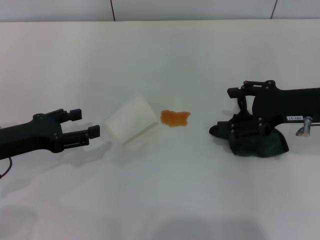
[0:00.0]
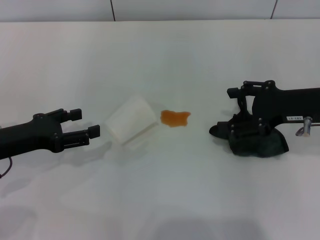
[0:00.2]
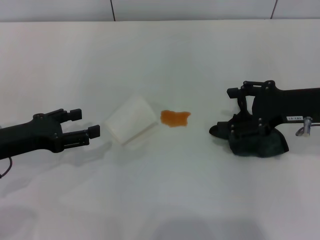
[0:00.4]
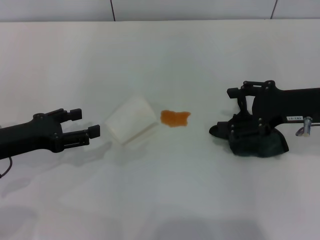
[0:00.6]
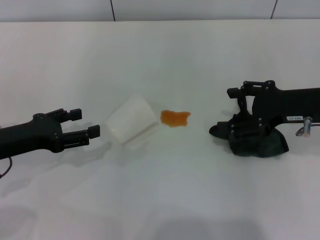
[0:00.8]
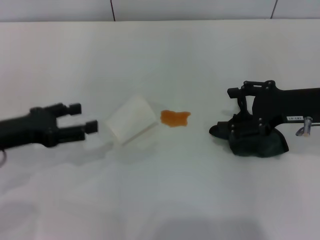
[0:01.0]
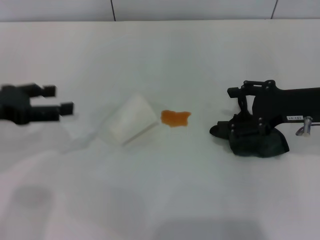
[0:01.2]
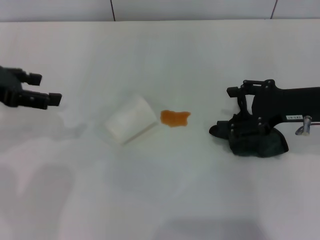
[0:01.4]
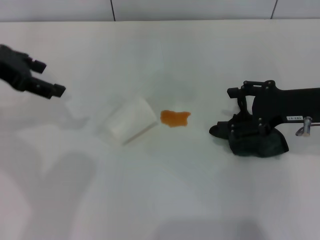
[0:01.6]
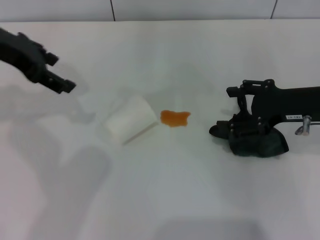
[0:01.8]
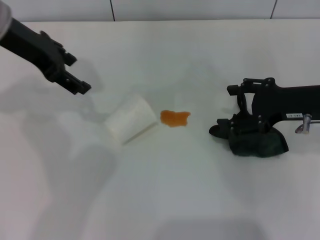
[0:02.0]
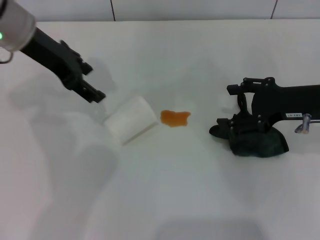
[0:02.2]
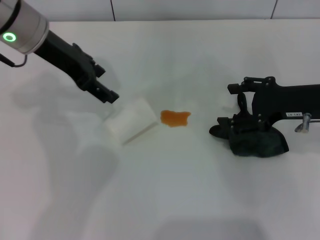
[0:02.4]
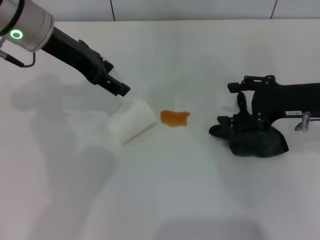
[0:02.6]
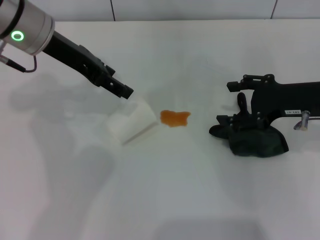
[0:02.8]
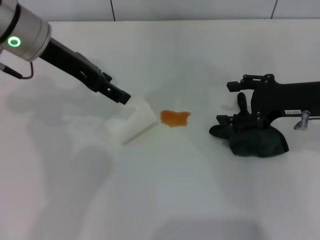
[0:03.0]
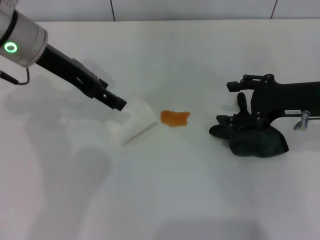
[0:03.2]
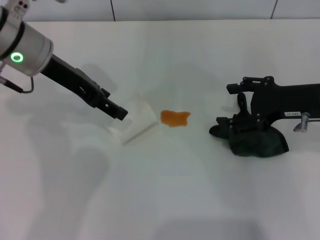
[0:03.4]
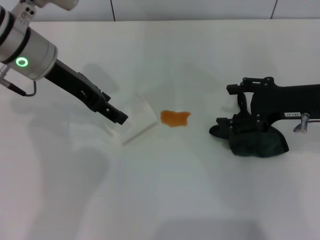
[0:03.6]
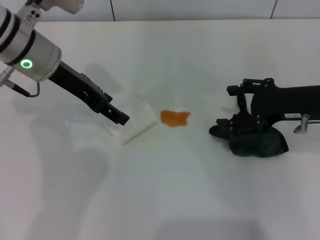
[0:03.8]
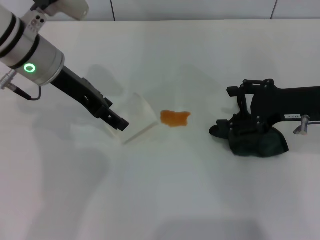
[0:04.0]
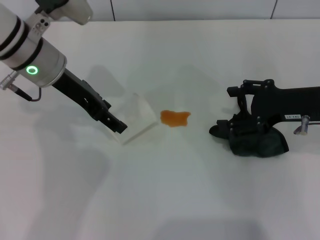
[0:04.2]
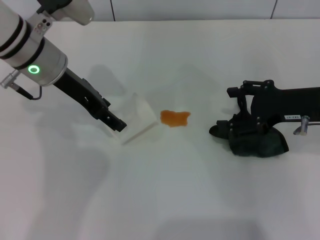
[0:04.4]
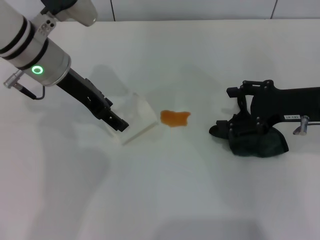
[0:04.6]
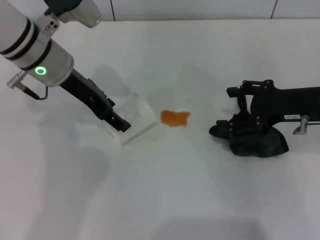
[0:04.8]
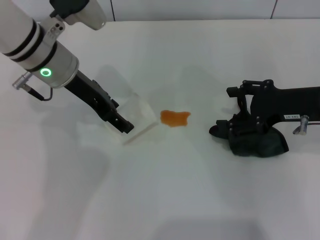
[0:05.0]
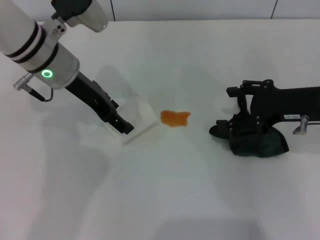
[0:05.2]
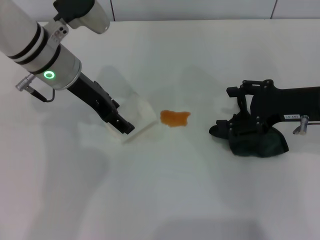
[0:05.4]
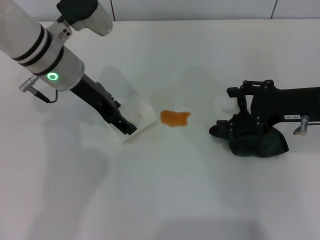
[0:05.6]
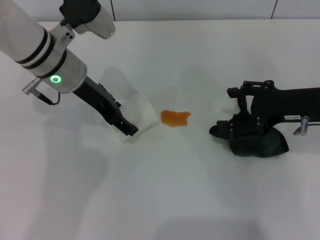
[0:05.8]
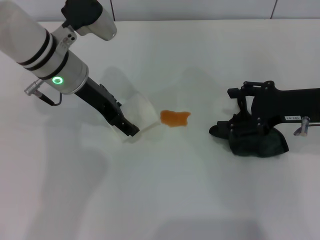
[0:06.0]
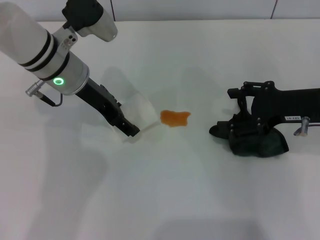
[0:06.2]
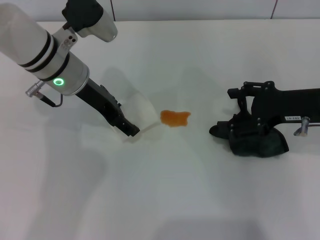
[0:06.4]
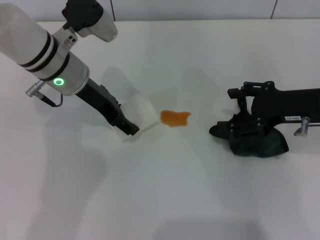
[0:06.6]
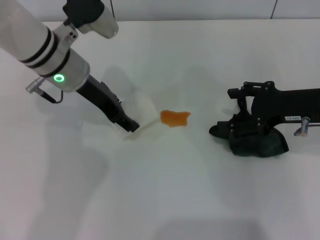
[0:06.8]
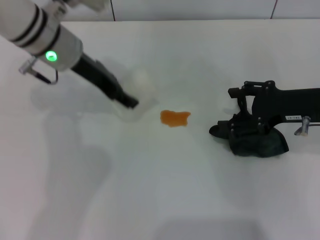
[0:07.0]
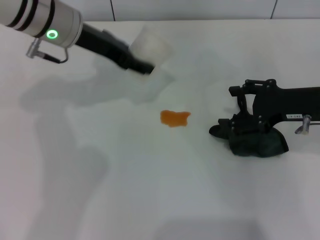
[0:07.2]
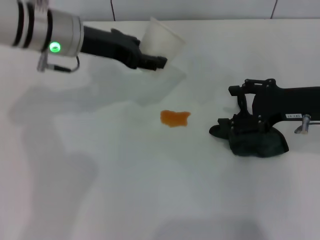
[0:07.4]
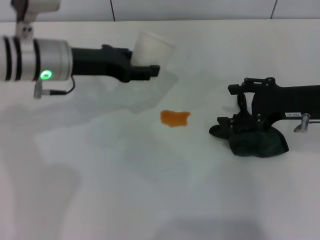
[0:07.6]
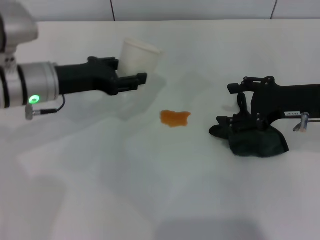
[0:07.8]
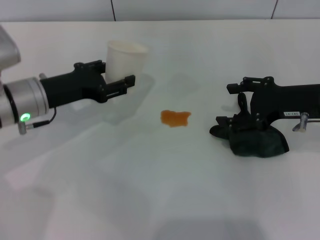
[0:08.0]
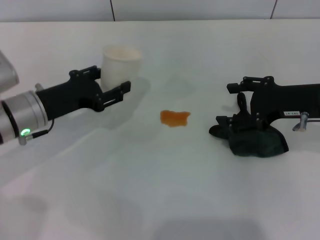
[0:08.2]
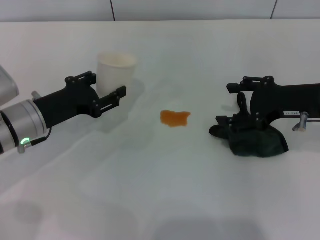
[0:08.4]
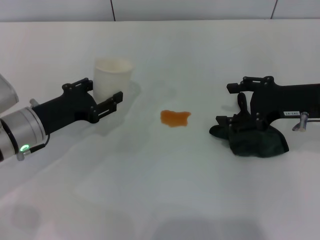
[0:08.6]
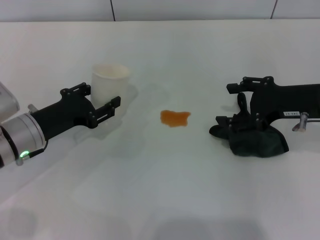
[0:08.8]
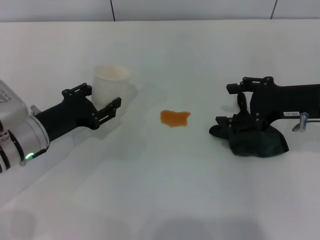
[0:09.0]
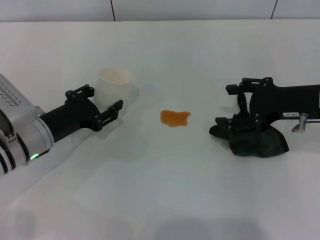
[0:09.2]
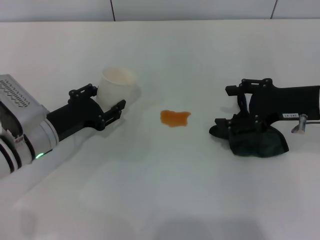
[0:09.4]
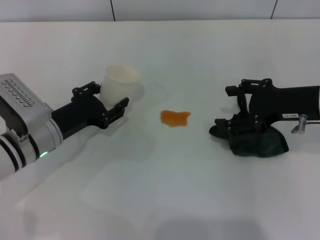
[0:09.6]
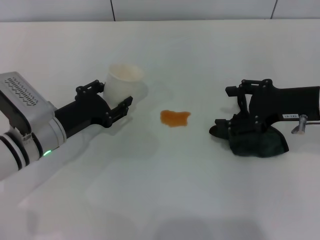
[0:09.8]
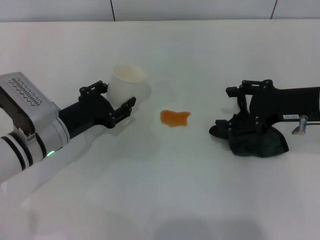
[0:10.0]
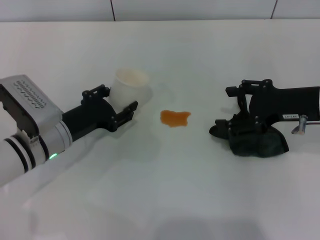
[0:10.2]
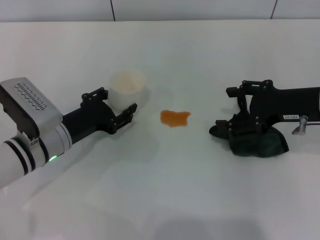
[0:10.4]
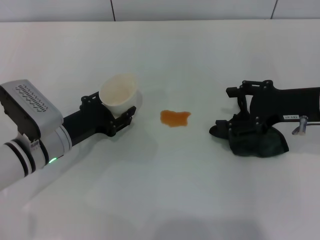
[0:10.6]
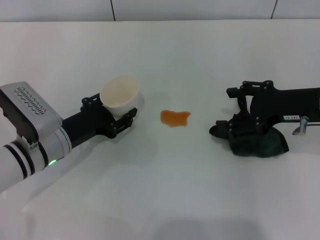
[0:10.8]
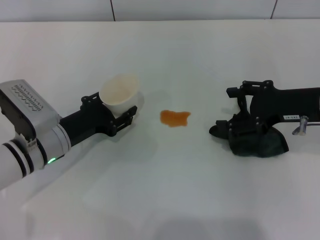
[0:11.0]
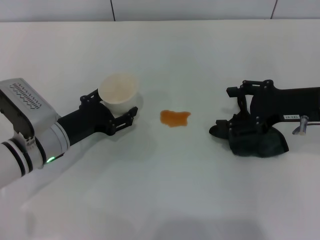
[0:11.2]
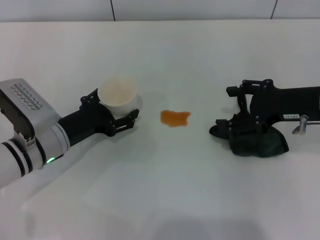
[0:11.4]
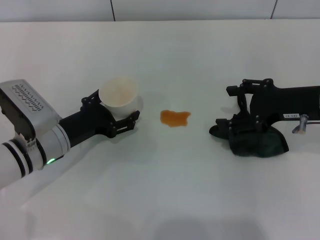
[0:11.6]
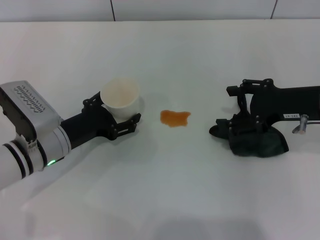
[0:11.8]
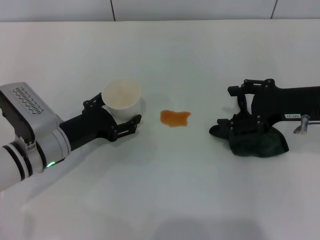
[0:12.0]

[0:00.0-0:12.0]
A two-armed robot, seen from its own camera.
Step, 0:00.0 to 0:06.4: Grasp the paper cup with the left gripper.
0:00.0 to 0:01.6: The left gripper is displaced upward and forward by some 15 cm.
0:01.6 to 0:03.0: The left gripper travels to the right by roughly 10 cm.
0:03.0 to 0:04.4: The grippers make only small movements.
0:04.4 to 0:06.0: The grippers move only a little.
0:06.0 to 0:07.6: The left gripper closes its fingers.
0:07.6 to 0:09.0: The left gripper shifts roughly 15 cm downward and backward.
0:09.0 to 0:10.4: The grippers move only a little.
0:10.4 to 0:12.0: The left gripper opens.

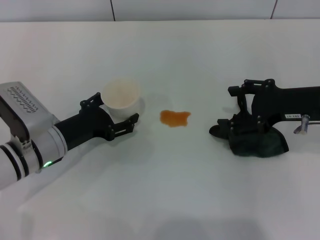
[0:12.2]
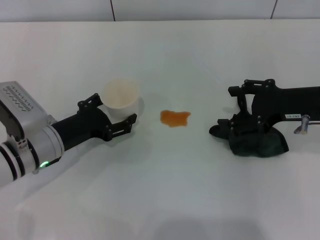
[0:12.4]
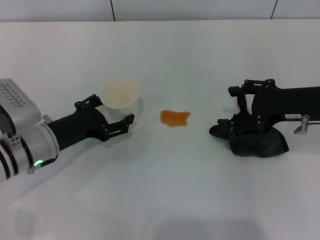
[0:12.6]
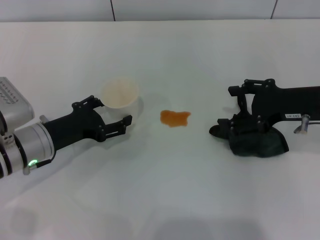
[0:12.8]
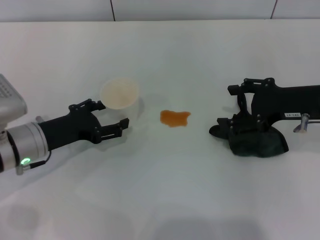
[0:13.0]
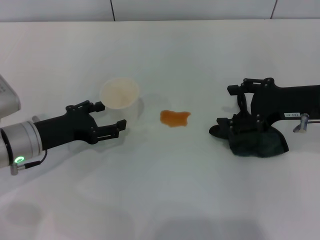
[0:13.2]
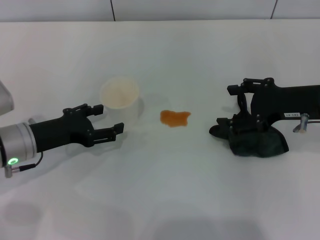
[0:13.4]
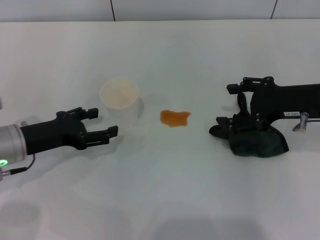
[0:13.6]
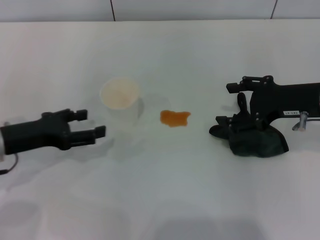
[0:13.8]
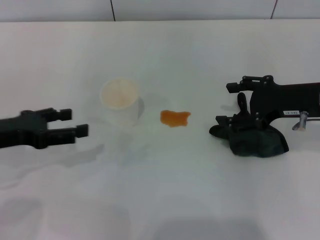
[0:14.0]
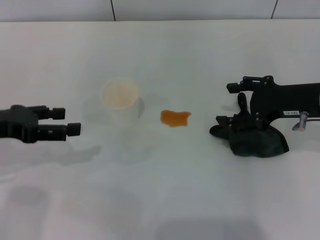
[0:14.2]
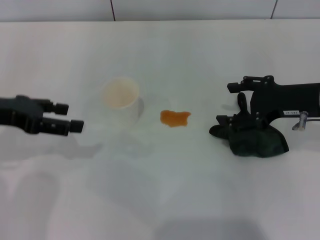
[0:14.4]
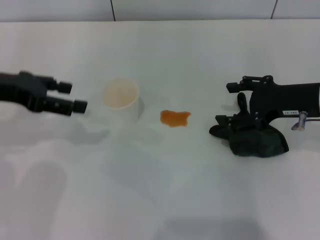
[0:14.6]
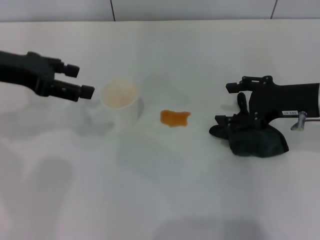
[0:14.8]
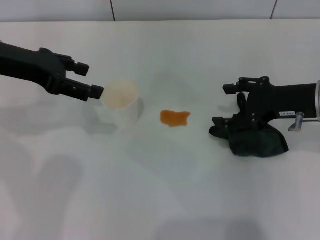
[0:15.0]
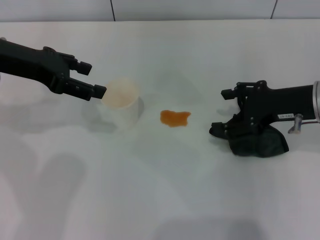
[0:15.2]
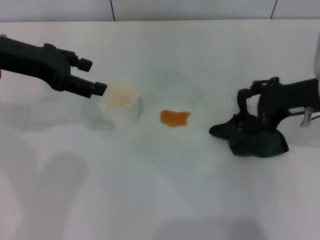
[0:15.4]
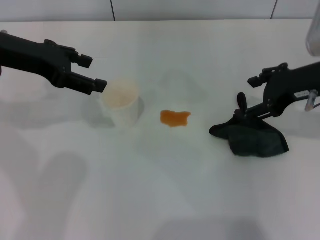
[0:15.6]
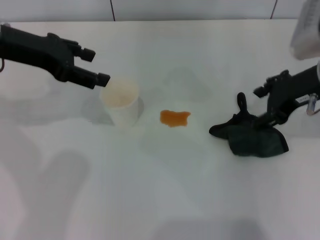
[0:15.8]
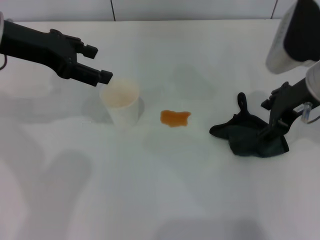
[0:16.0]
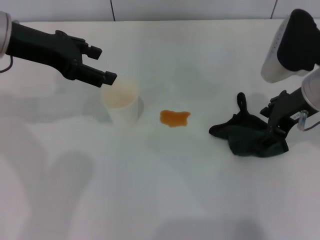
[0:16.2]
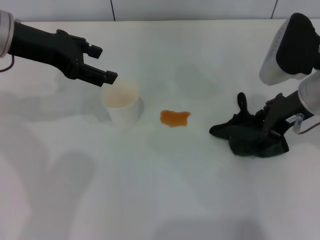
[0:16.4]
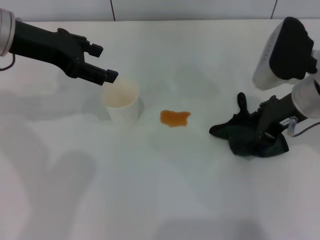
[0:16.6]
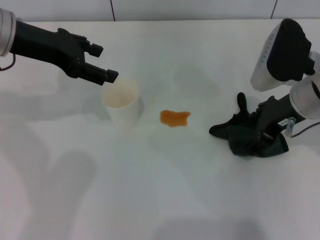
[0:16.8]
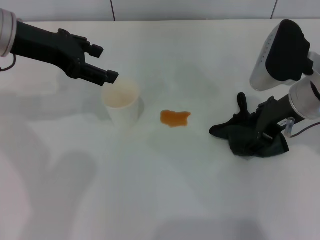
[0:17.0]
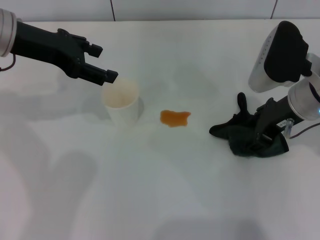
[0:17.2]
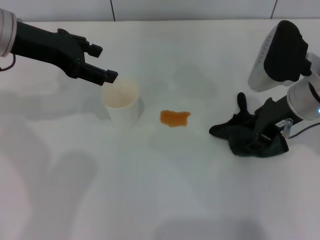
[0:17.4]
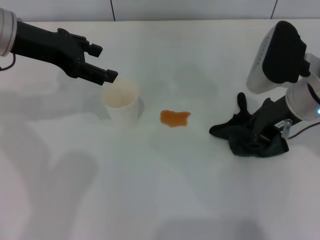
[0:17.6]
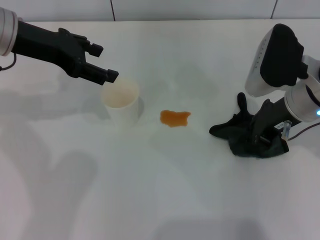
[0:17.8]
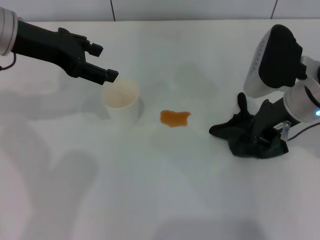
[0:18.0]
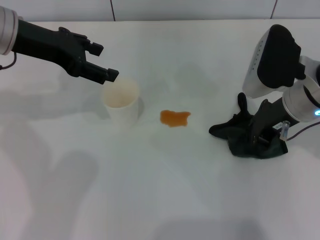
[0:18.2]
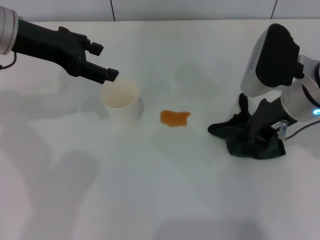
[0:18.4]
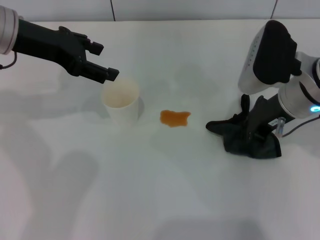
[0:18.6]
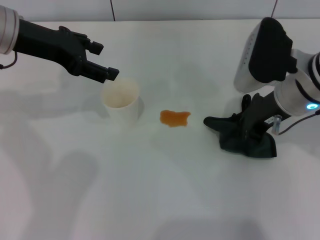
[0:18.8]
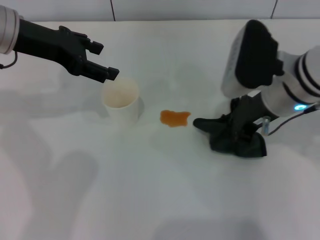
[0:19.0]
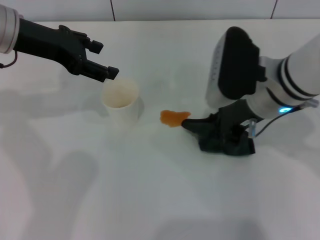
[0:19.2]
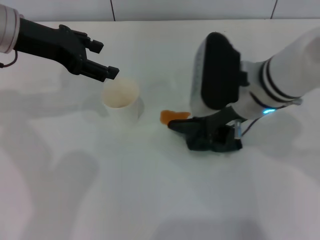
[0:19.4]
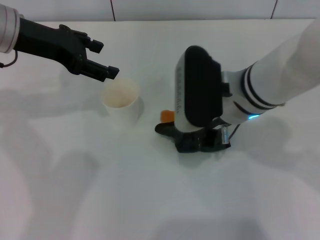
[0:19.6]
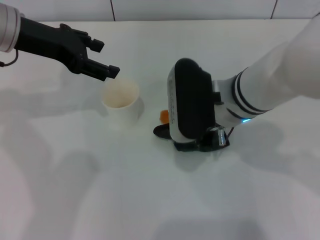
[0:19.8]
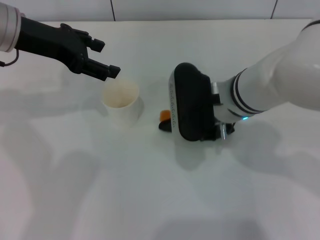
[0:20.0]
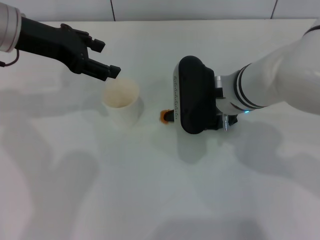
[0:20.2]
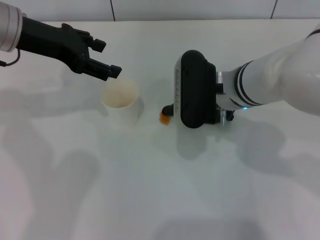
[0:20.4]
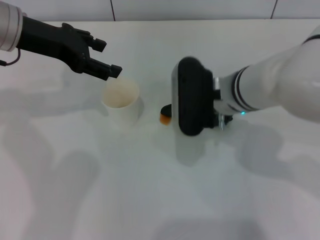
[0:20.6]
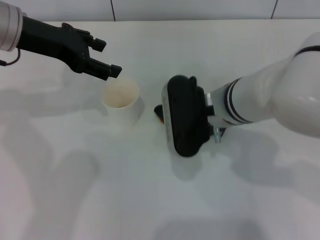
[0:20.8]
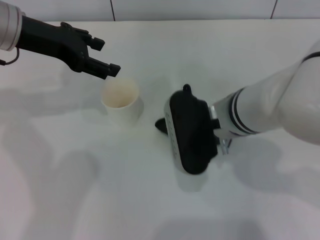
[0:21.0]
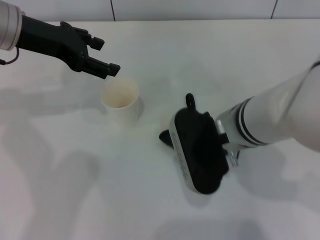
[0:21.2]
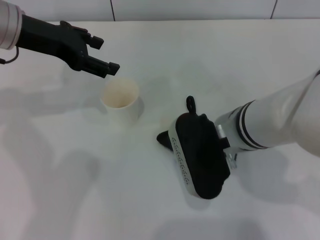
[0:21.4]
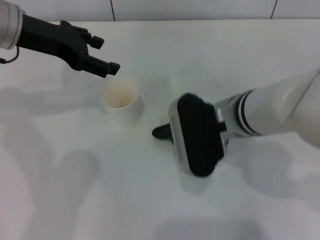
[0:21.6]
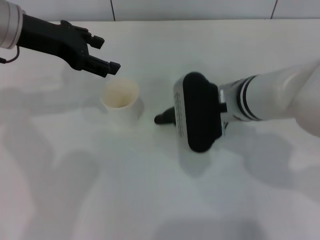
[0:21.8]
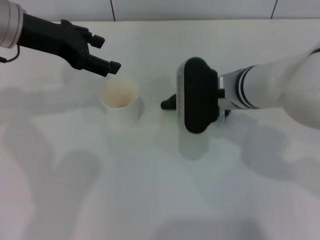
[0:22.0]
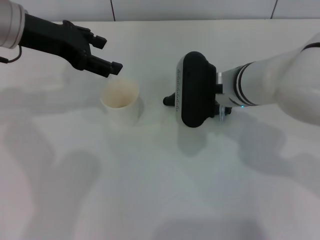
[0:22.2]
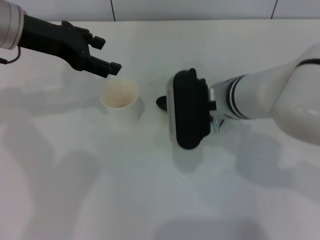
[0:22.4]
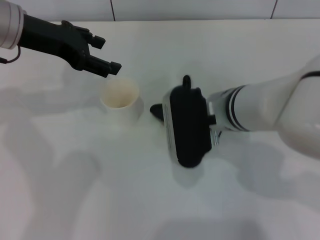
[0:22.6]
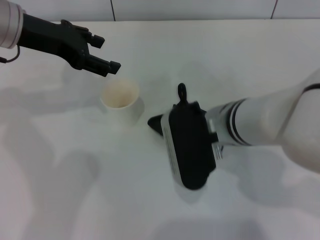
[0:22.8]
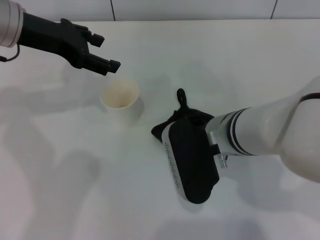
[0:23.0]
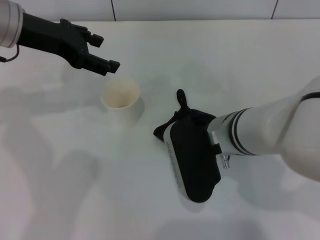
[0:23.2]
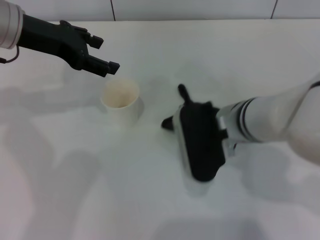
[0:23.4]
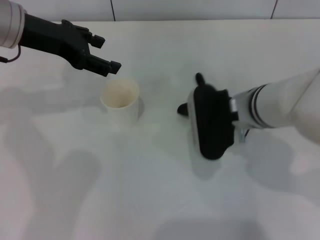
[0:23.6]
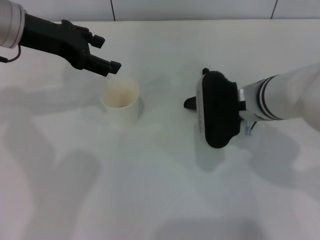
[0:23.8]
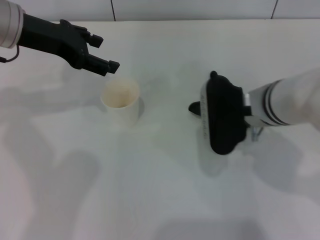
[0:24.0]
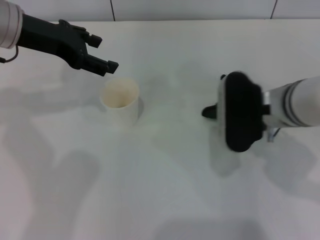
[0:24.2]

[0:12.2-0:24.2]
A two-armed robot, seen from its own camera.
Step, 0:13.8 to 0:18.2: Grasp the rag with the right gripper.
Step, 0:18.6 to 0:24.0: Wipe the stains off the table with the right gripper.
0:12.2 to 0:13.8: The left gripper heads to the left and upward, covering approximately 10 cm.
0:13.8 to 0:15.2: The left gripper moves upward and forward, some 15 cm.
0:16.6 to 0:18.2: The right gripper closes up.
0:18.2 to 0:19.8: The right gripper moves to the left, roughly 10 cm.
0:19.8 to 0:21.2: The grippers move only a little.
0:22.6 to 0:24.2: The right gripper is displaced to the right by some 5 cm.
